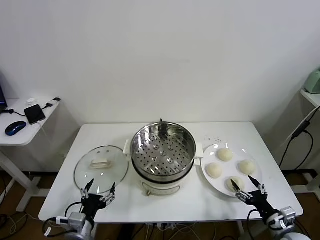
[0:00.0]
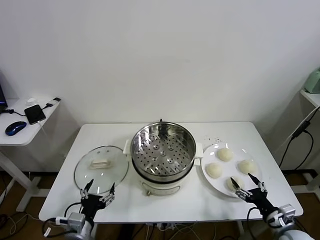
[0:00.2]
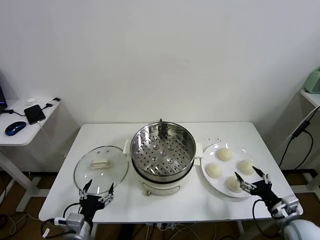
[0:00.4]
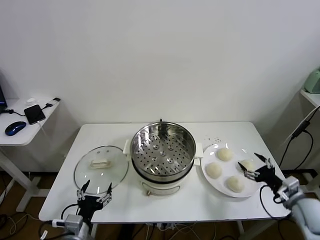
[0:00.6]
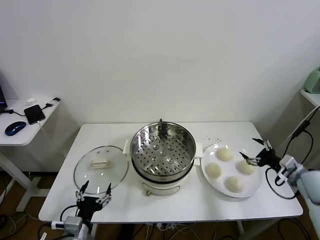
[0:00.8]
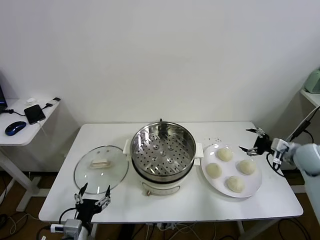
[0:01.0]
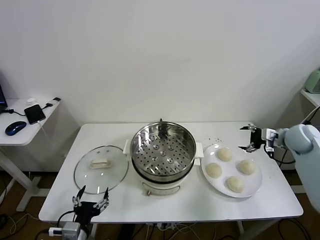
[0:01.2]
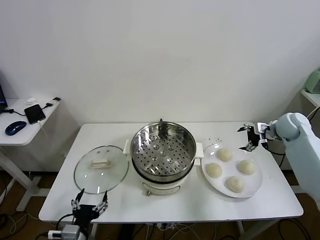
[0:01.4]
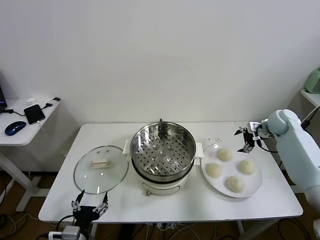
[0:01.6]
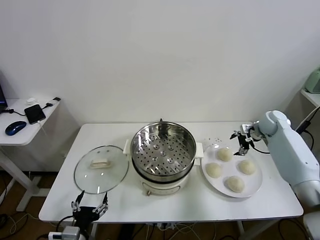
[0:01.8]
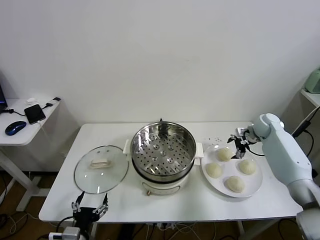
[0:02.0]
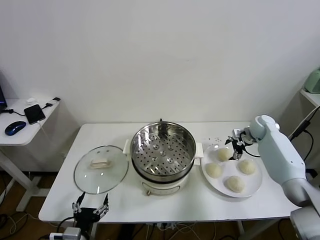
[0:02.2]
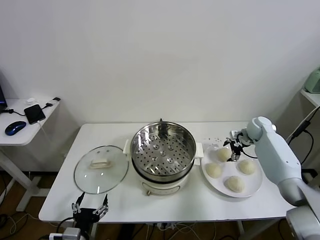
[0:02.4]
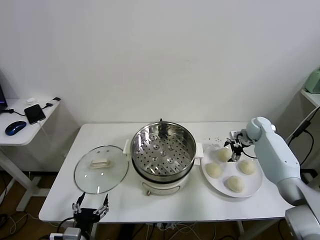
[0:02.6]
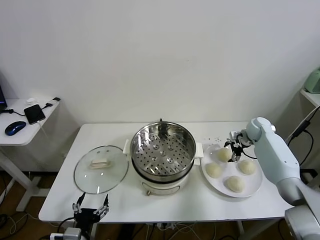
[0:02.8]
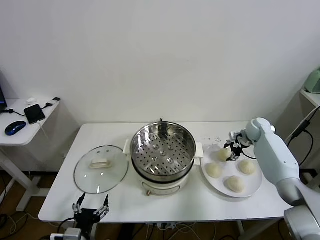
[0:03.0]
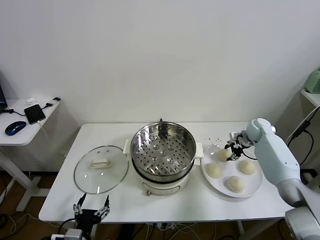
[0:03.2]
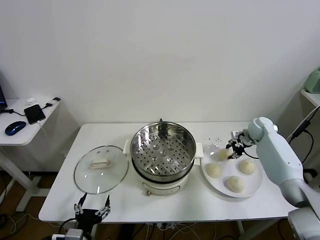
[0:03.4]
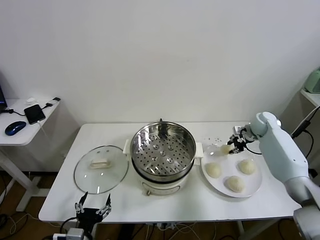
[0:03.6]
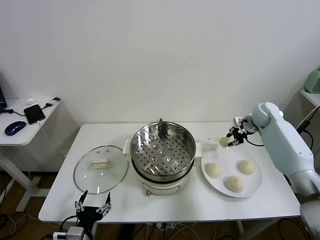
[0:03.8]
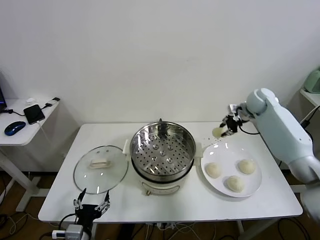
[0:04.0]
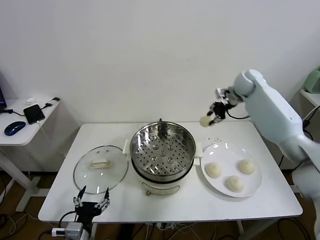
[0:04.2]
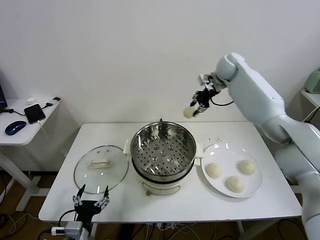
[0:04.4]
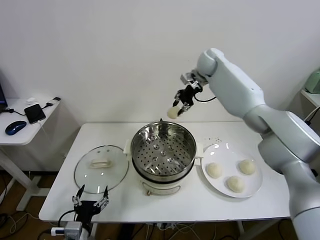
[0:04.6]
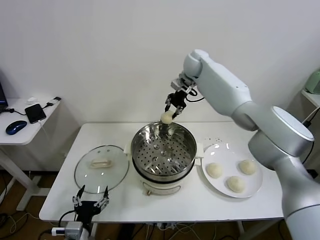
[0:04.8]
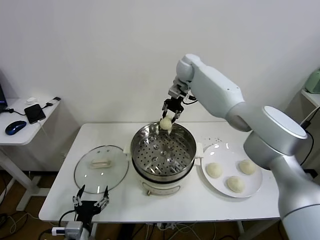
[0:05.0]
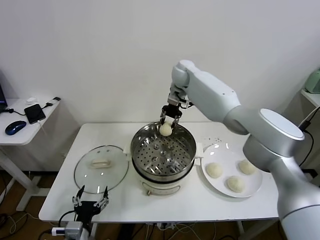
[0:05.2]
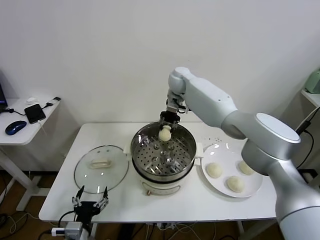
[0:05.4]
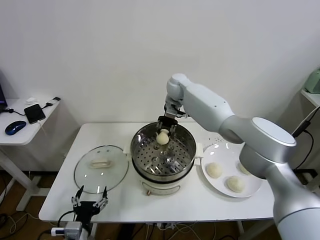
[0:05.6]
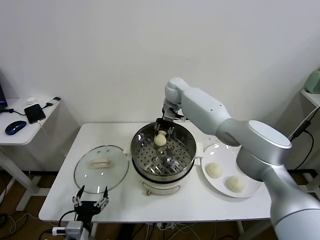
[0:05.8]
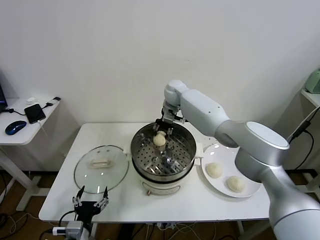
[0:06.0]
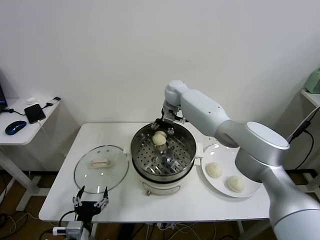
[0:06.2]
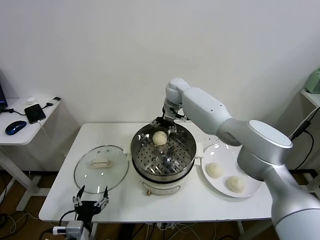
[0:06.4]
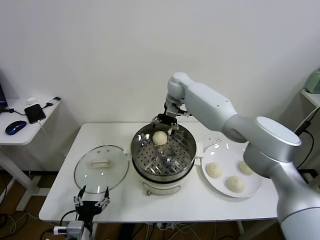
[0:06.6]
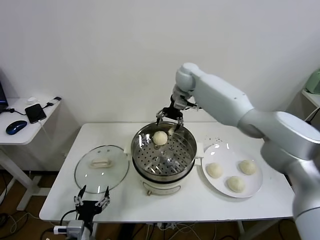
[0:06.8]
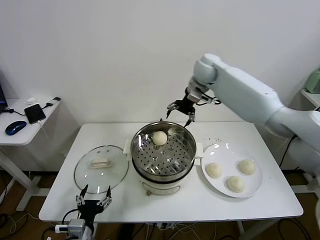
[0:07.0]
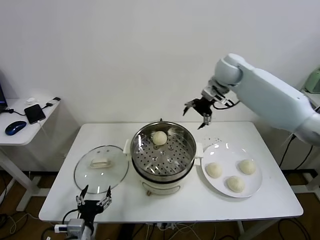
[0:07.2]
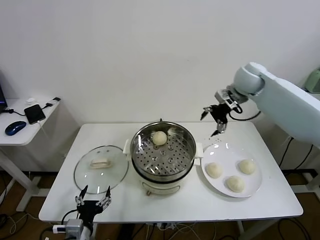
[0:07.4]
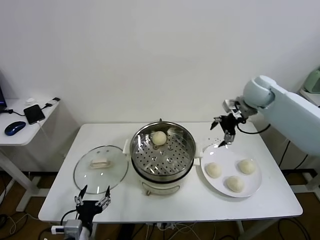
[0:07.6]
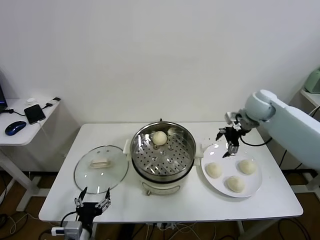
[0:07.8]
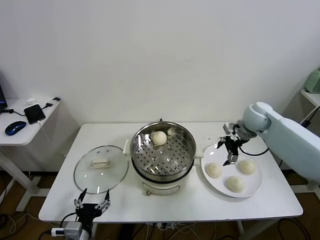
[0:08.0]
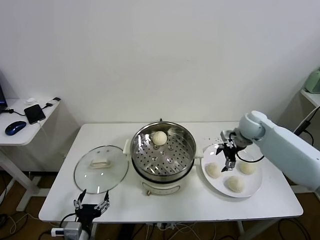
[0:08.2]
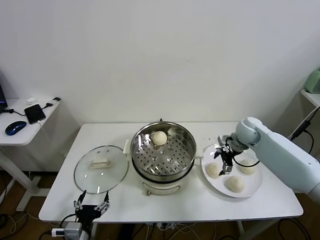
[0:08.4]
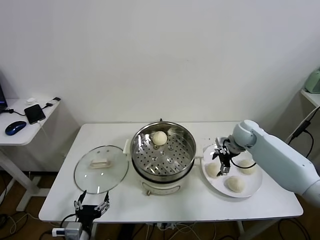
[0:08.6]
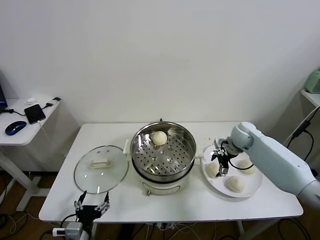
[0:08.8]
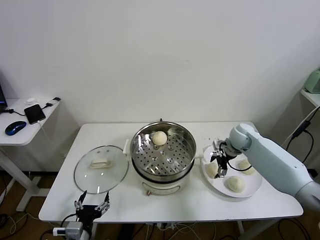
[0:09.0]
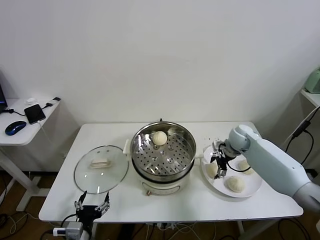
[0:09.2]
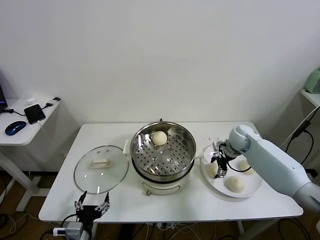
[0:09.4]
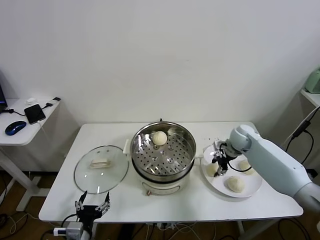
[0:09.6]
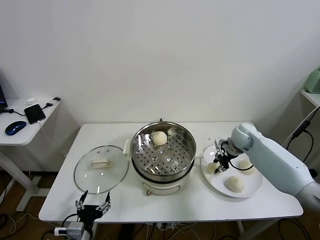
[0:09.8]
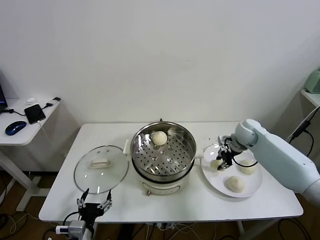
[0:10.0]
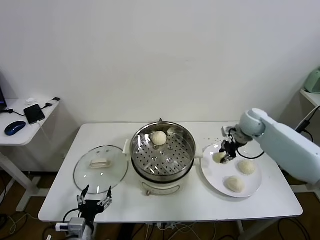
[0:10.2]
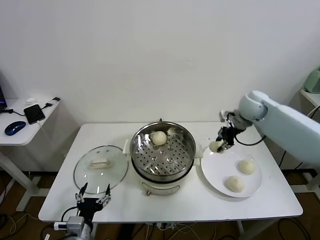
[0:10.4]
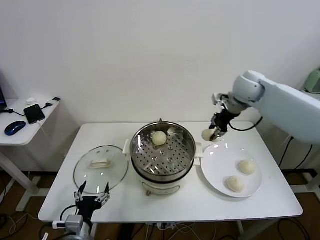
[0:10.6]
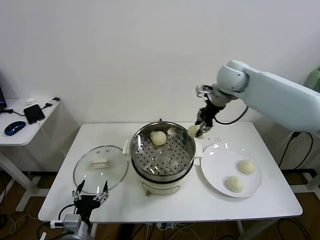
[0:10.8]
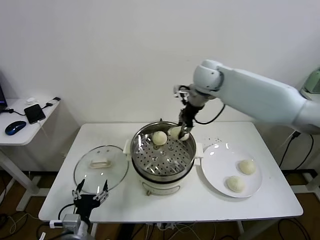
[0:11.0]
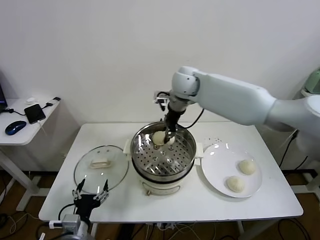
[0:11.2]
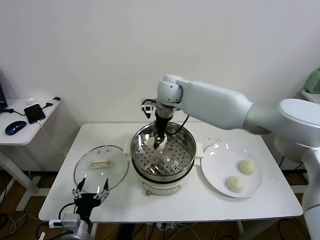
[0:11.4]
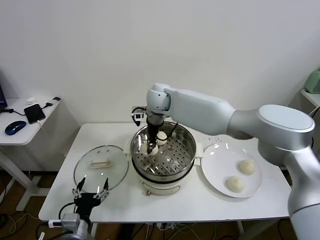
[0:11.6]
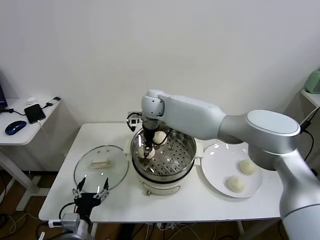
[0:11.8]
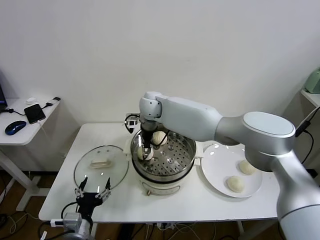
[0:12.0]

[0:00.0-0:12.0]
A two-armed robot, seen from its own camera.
Task of the whole recording: take steamed baozi put them in steamer.
Step, 0:00.0 to 0:03.2: Grasp the baozi in the plate with right gripper.
Step, 0:03.4 to 0:06.2: Place the baozi on the steamer with right gripper.
Step, 0:06.4 to 0:09.6: Grasp the baozi in the plate with right gripper.
0:01.6 to 0:03.0: The right gripper is displaced downward by roughly 5 cm, and closes its fingers.
0:03.0 to 0:04.4: The right gripper shifts approximately 35 cm upward and to the left, and closes its fingers.
0:04.4 to 0:06.0: The right gripper is displaced to the left and downward by some 20 cm.
0:06.0 to 0:07.6: The right gripper heads to the right and backward, covering some 30 cm, and opens.
0:07.6 to 0:09.0: The right gripper goes roughly 20 cm downward.
0:09.0 to 0:10.4: The right gripper heads upward, covering some 20 cm, and closes.
0:10.4 to 0:12.0: The right gripper travels to the left by approximately 35 cm, and opens up.

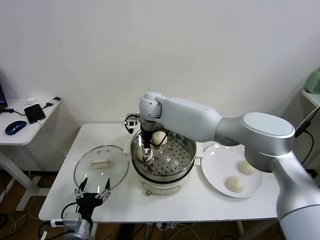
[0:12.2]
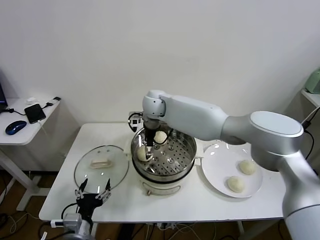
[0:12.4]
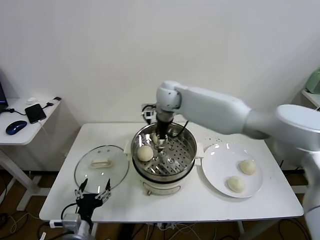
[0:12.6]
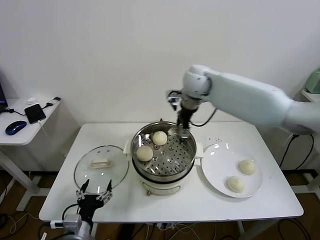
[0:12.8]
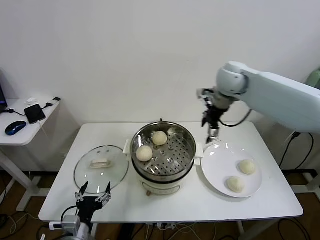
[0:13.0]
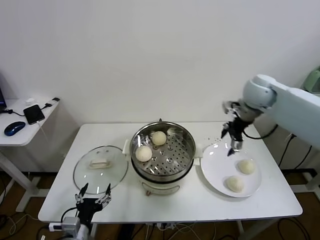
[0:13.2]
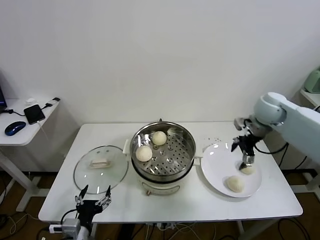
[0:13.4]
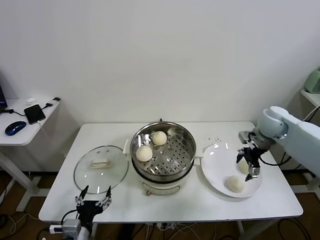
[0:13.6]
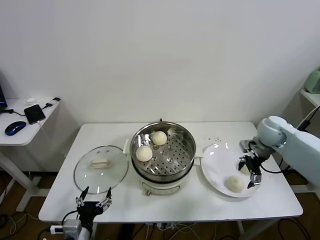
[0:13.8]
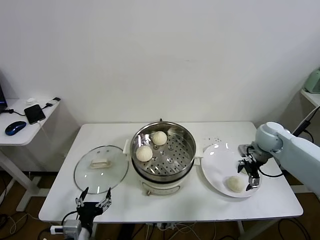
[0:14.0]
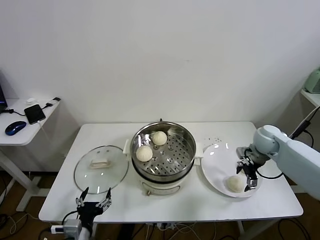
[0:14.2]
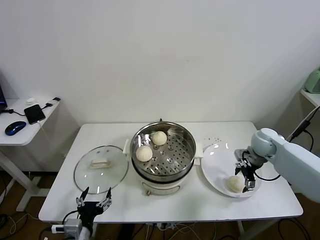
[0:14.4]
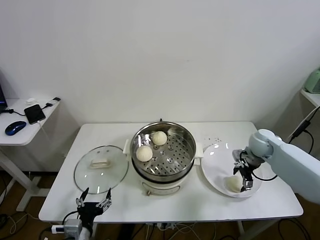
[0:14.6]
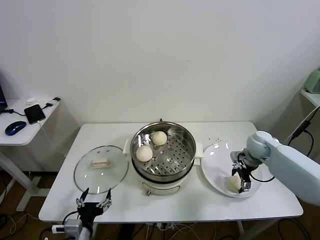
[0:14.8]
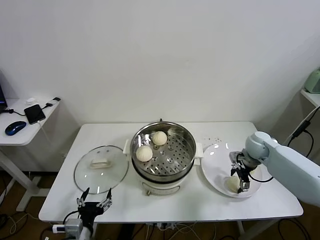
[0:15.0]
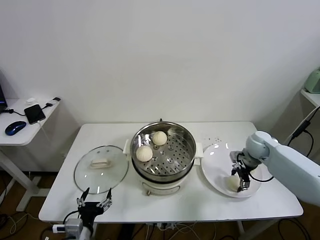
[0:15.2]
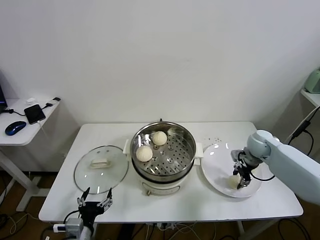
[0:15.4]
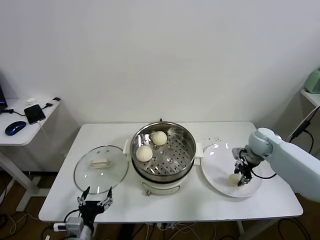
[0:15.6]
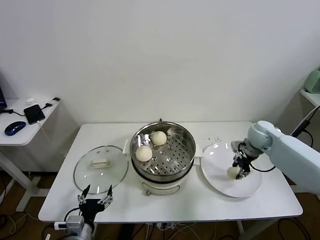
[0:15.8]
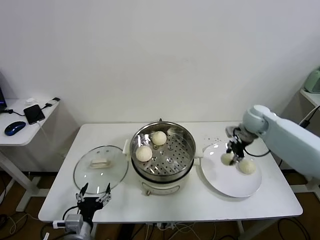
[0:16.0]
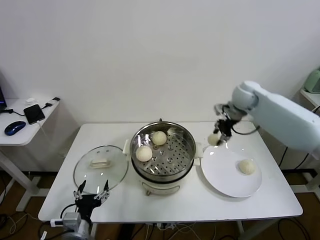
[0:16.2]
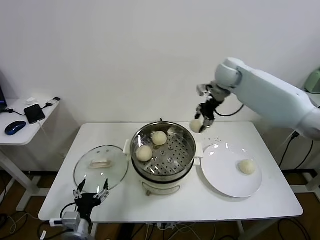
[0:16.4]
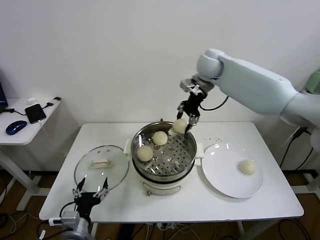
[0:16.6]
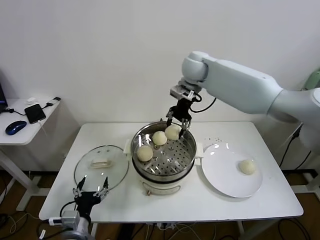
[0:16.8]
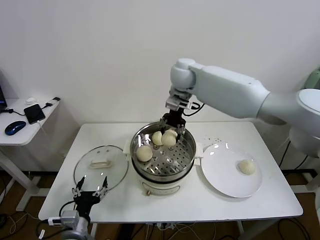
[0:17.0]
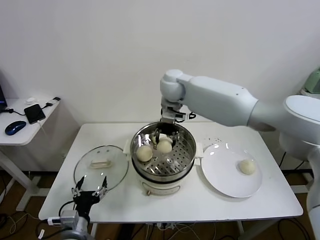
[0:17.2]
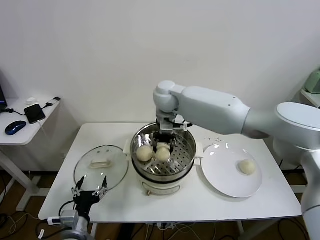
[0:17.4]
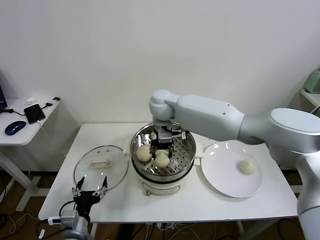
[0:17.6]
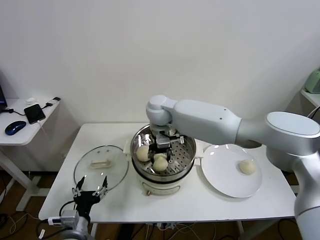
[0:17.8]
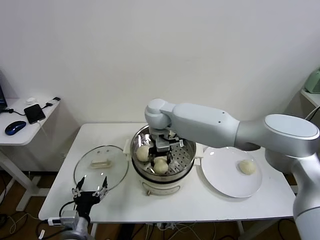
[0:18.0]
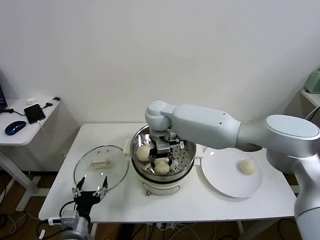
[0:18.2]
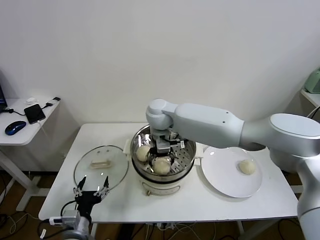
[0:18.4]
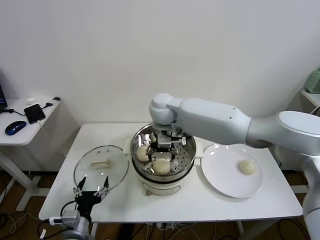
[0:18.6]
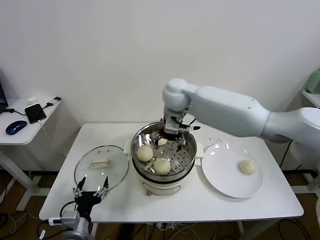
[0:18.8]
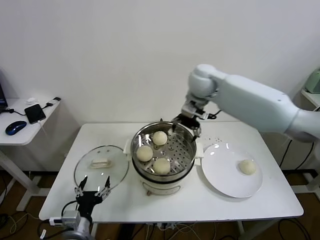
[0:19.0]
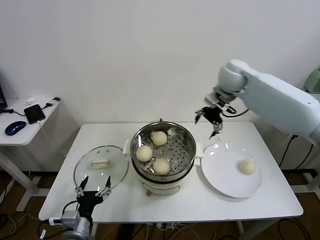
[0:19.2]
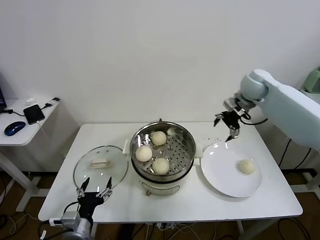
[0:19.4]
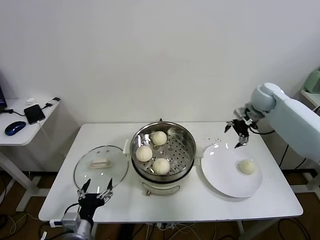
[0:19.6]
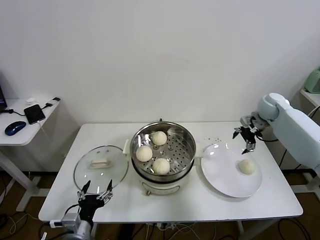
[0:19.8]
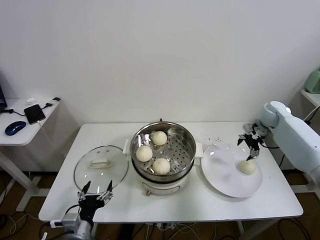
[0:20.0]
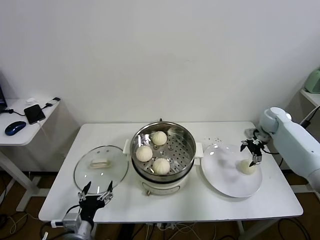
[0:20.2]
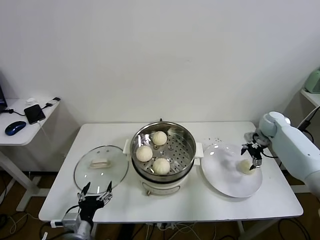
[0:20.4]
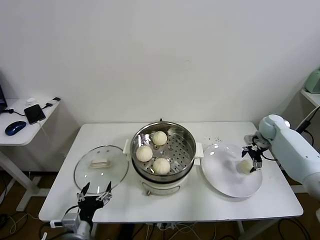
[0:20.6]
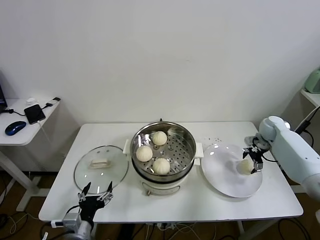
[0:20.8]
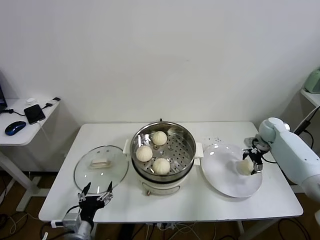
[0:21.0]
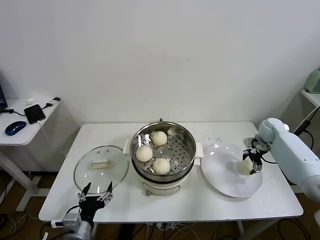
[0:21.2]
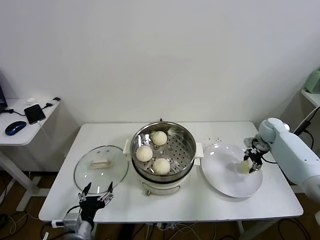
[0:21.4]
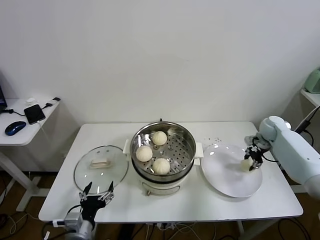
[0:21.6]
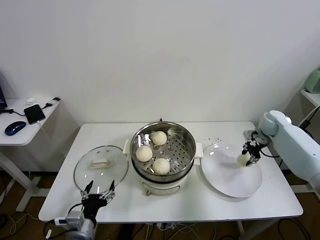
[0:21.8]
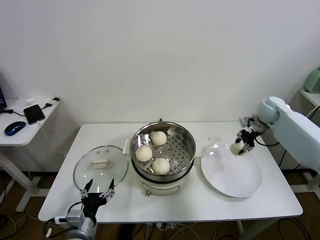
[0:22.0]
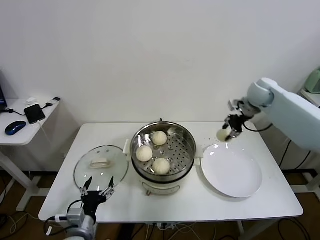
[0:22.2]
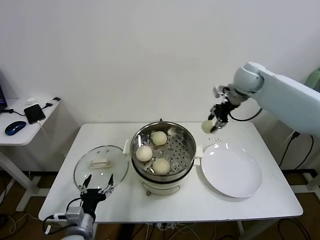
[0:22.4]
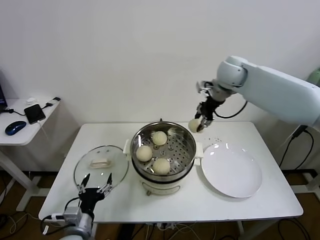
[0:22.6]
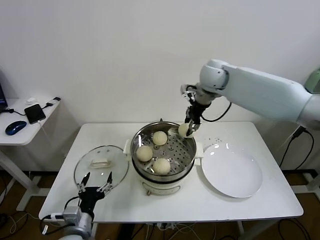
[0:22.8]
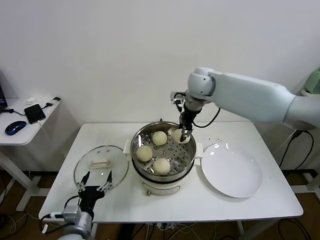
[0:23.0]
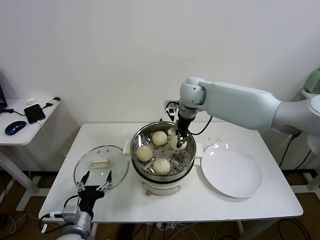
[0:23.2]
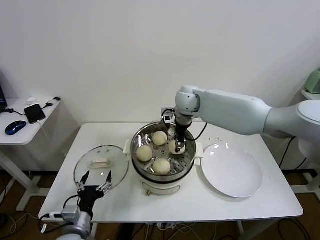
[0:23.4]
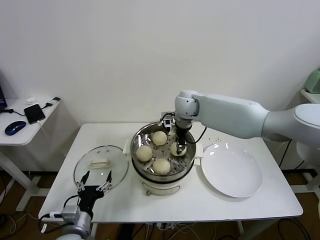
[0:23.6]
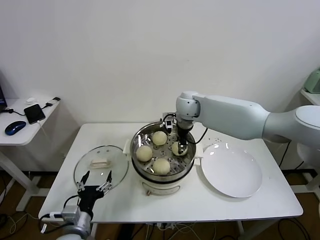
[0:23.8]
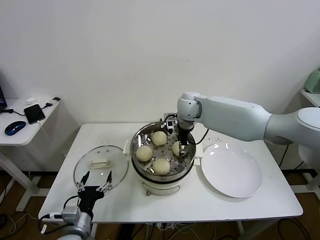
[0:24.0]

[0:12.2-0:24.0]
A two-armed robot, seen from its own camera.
Task of the whole recording: take steamed baozi put them in steamer.
Step, 0:12.6 to 0:15.2: Grasp the baozi in the plate with right gripper.
Step, 0:15.4 to 0:18.2: Place the baozi on the steamer with right gripper.
Step, 0:18.6 to 0:21.2: Grasp the baozi in the plate with right gripper.
0:12.2 to 0:13.6: The right gripper shifts about 40 cm to the right.
0:13.6 to 0:15.2: The right gripper is displaced downward by approximately 10 cm.
0:15.2 to 0:16.6: The right gripper moves upward, to the left and forward, approximately 35 cm.
0:16.6 to 0:18.2: The right gripper shifts some 25 cm to the left, downward and backward.
0:18.2 to 0:19.6: The right gripper travels to the right by about 40 cm, and opens.
0:19.6 to 0:21.0: The right gripper moves downward and to the right, roughly 15 cm.
0:21.0 to 0:22.6: The right gripper travels upward and to the left by roughly 35 cm, and closes up.
0:22.6 to 0:24.0: The right gripper travels downward and to the left by roughly 15 cm, and opens its fingers.
